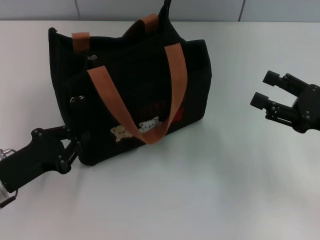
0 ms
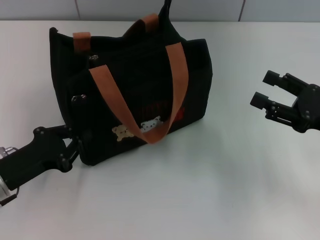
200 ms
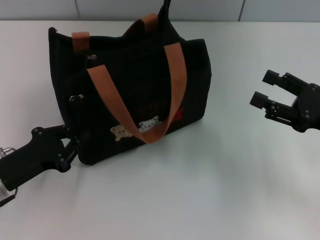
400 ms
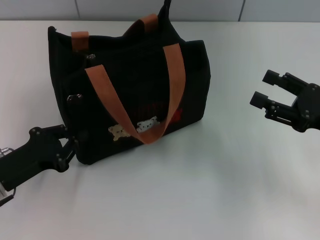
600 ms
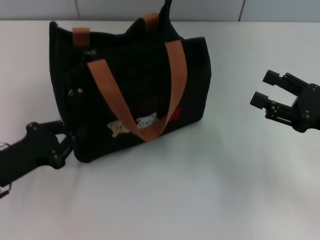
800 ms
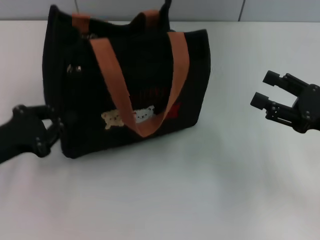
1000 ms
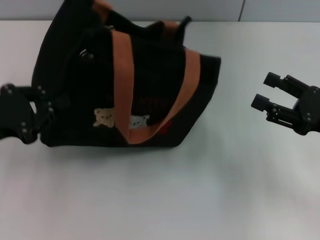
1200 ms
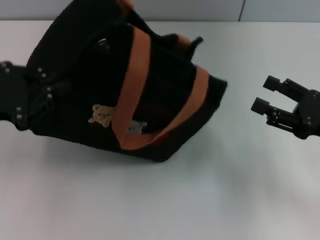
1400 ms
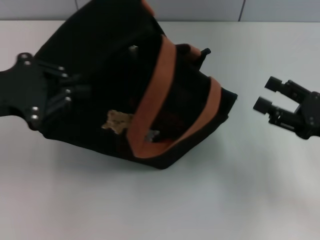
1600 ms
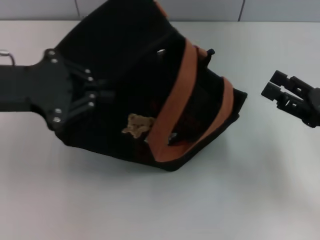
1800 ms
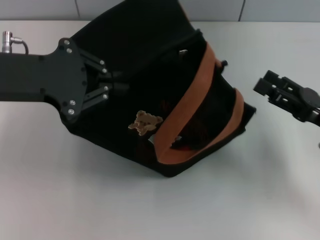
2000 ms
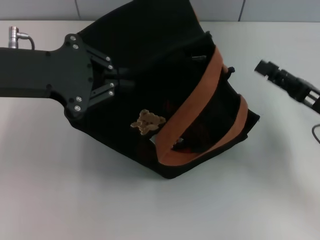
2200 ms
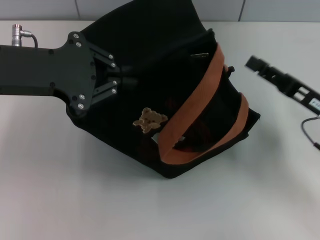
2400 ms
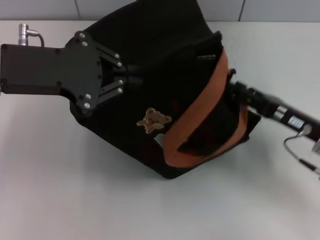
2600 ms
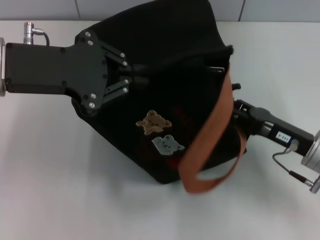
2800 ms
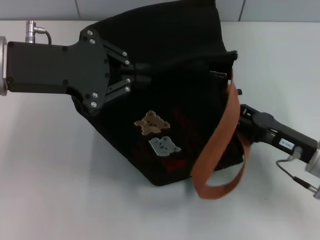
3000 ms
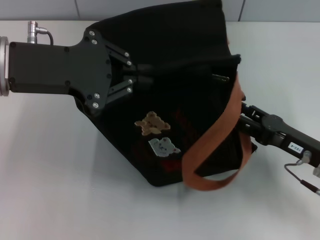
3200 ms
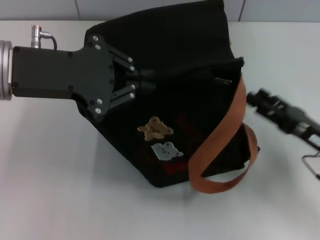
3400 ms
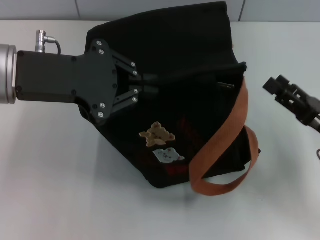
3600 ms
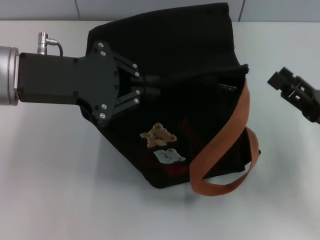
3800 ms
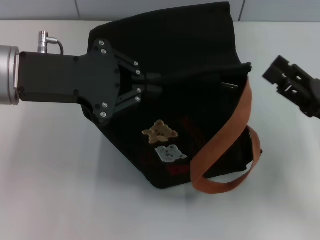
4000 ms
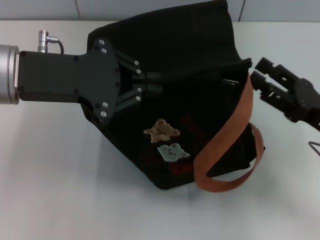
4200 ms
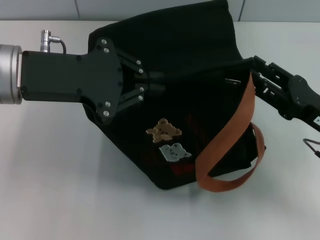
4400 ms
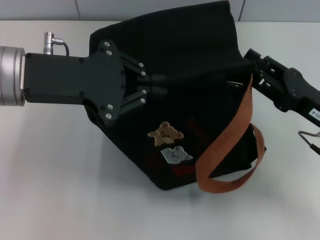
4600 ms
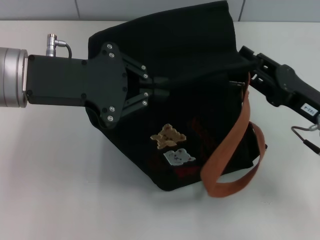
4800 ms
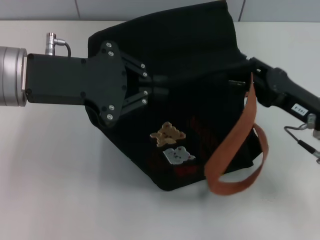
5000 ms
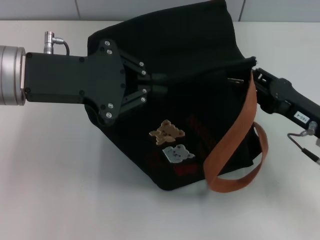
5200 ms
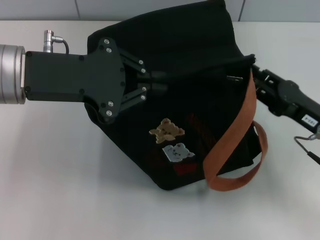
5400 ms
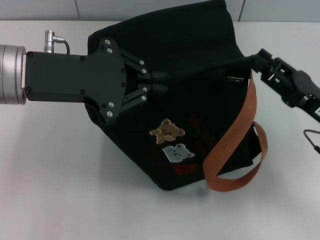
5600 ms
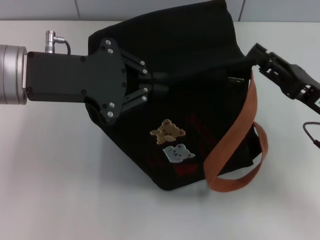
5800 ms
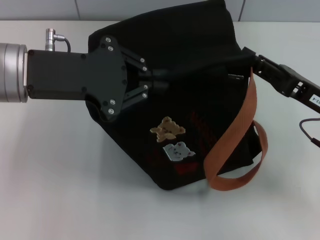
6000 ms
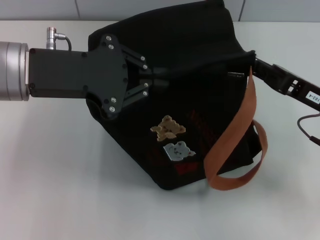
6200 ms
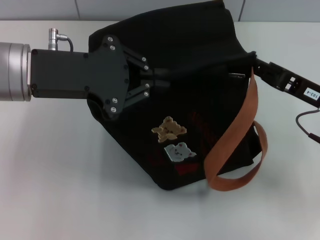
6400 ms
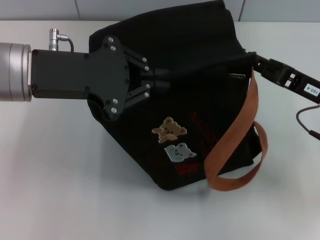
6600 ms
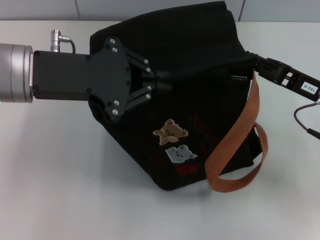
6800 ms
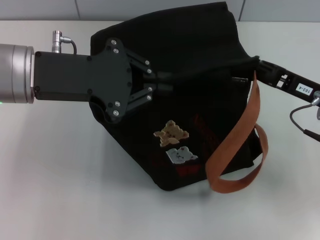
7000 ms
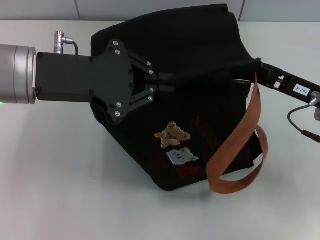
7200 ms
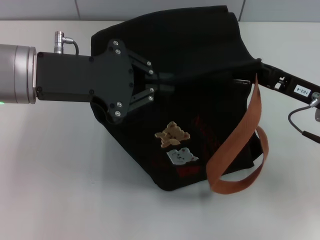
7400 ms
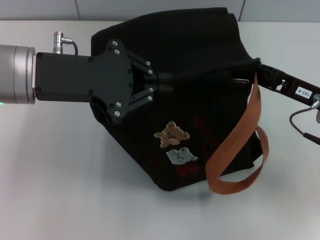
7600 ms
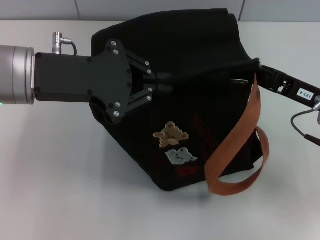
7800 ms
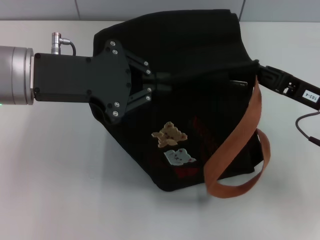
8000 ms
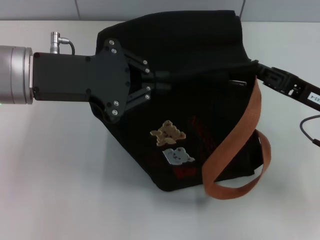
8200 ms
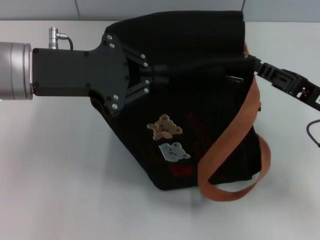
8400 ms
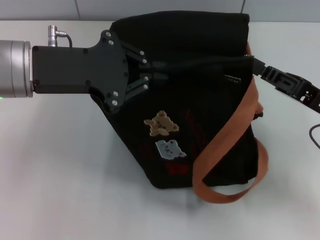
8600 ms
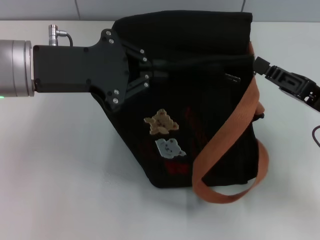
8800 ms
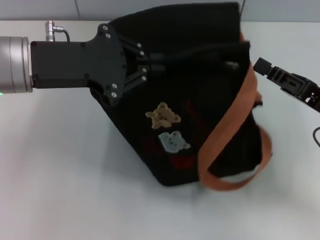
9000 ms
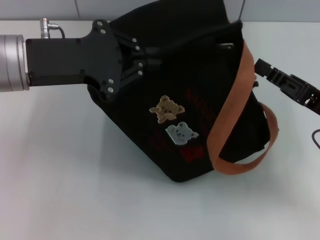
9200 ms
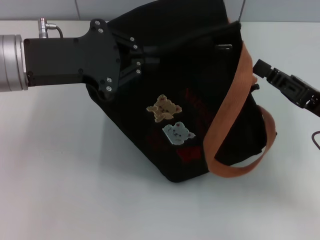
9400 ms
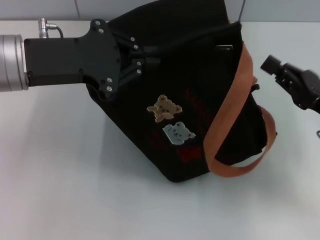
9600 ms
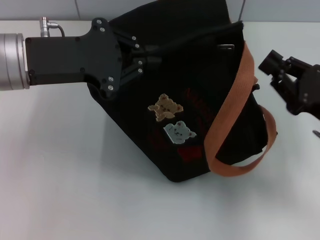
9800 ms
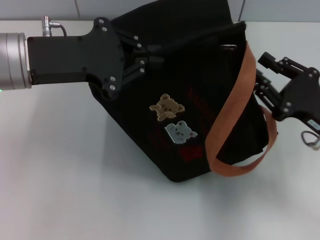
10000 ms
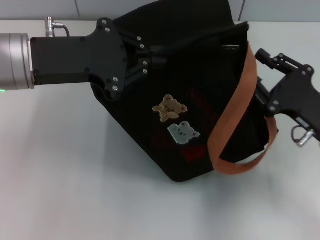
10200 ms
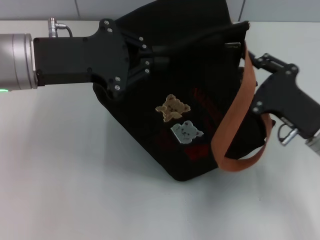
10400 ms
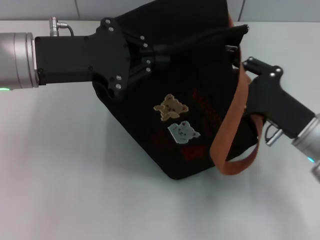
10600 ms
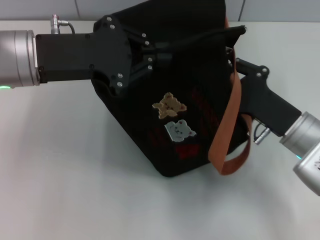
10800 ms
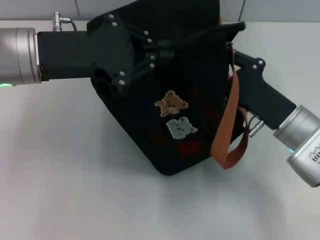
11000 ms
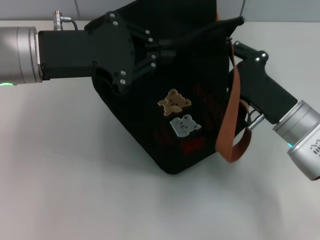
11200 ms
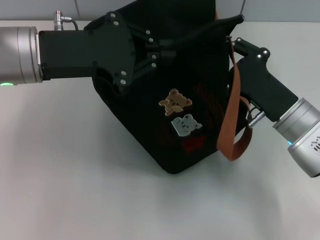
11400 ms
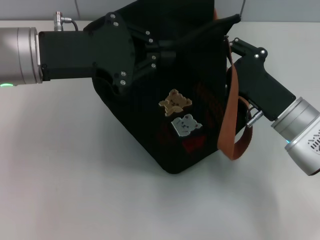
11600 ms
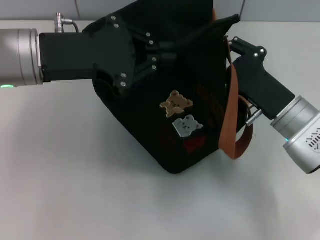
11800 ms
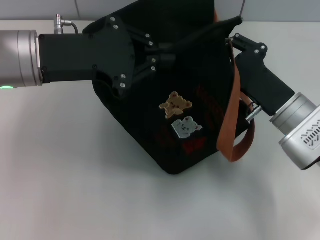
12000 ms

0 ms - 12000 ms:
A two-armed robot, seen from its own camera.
0 ms - 1600 ms: The left gripper moves upward, some 15 cm.
1600 ms - 3000 ms: The right gripper shifts some 5 cm to the left. Meanwhile the left gripper goes some 5 cm to the right.
4400 ms - 6000 ms: The grippers make only small movements.
6000 ms - 7600 ms: The right gripper closes up.
7600 ms - 9000 ms: The grippers stay close to where they were, moving slightly.
9000 ms - 10400 ms: The right gripper shifts by some 5 cm, and opens its fingers.
10400 ms - 12000 ms: The right gripper shifts by approximately 5 cm.

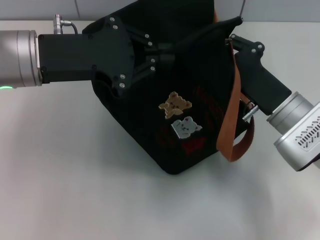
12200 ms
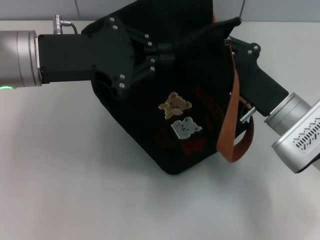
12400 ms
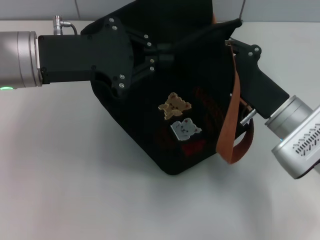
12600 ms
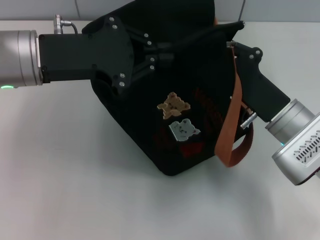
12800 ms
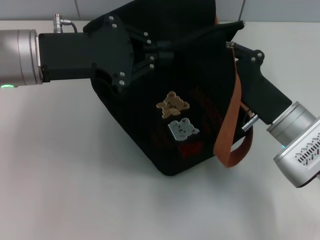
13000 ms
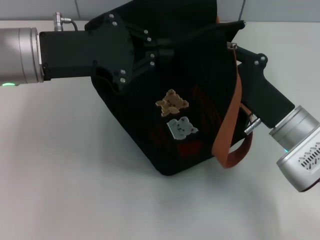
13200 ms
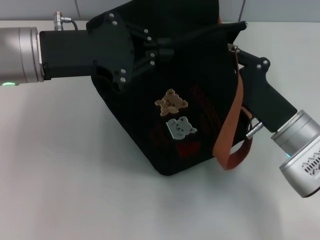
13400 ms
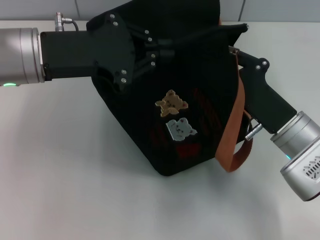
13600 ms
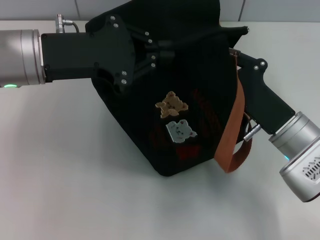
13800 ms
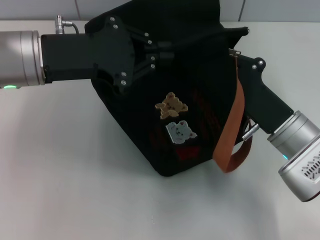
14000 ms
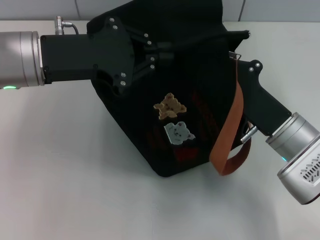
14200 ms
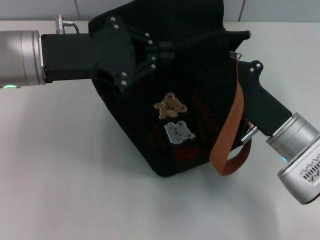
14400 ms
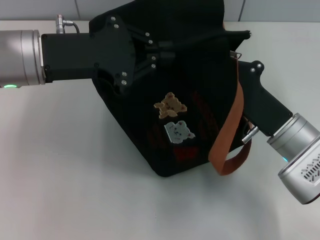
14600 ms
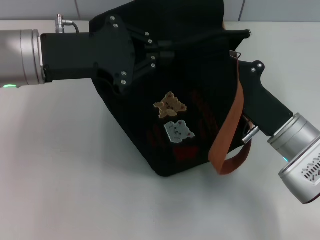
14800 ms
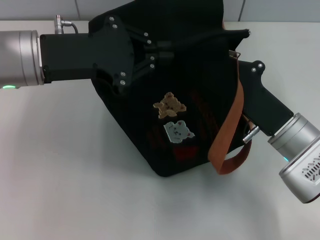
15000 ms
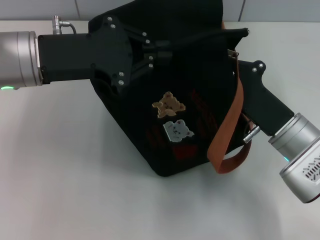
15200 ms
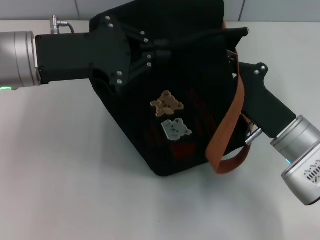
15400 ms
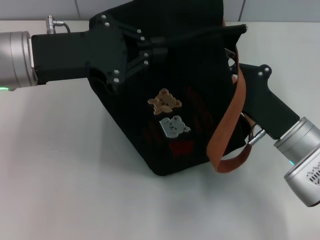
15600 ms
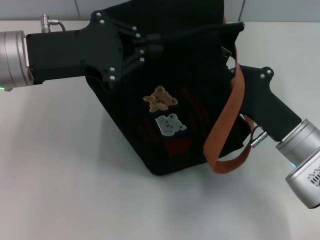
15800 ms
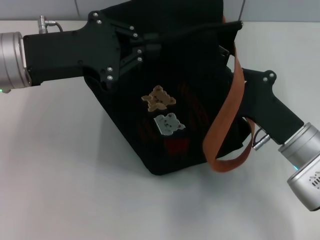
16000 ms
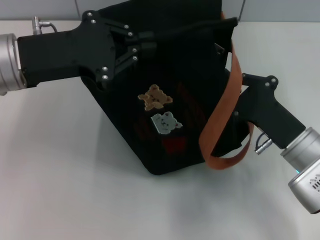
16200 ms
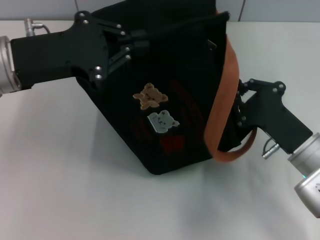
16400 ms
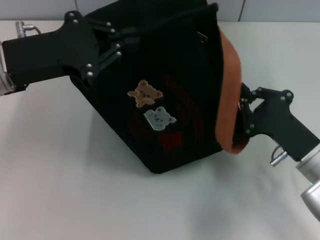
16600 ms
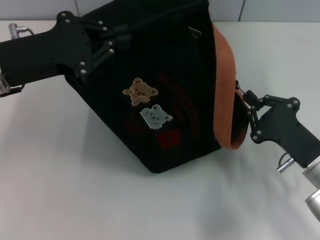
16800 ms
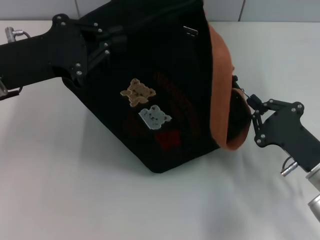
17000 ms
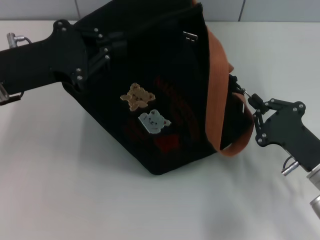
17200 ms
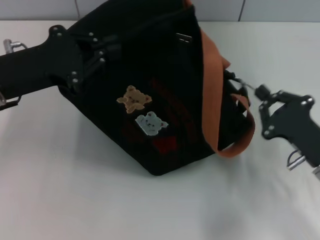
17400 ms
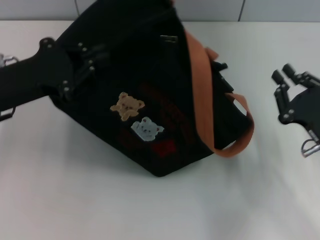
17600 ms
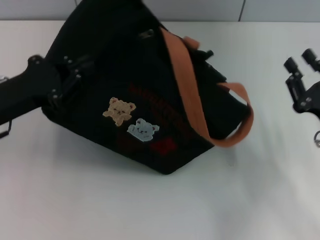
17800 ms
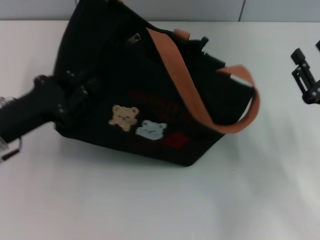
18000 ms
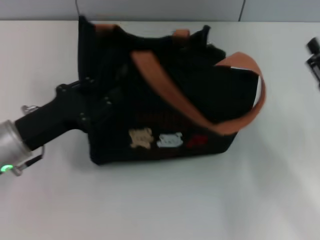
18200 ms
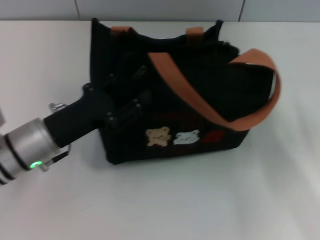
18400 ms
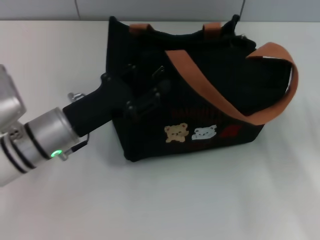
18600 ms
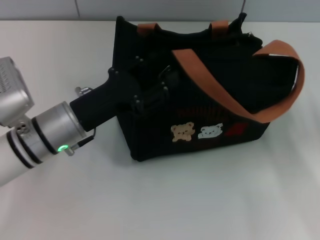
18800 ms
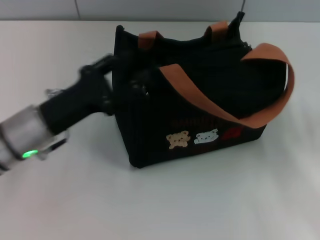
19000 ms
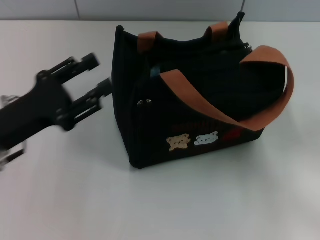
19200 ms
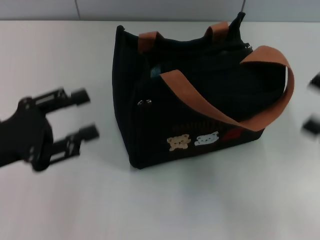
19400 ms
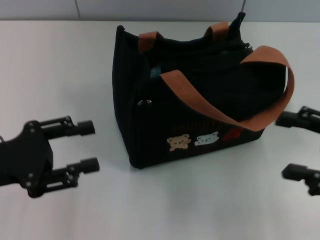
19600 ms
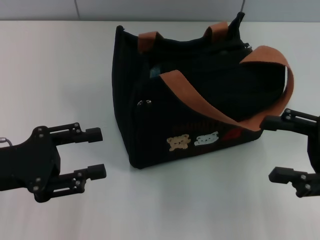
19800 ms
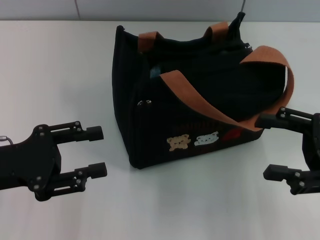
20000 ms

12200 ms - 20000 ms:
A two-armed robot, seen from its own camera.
Step, 12200 ms - 17400 ms: Pull open the zipper with your right hand.
Step, 17600 ms - 19000 ms: Grab the bag with your left hand.
12200 ms - 13800 ms: The grippers stay close to where they were, moving slightly.
13800 ms - 15400 ms: Neither gripper changes place.
15400 ms - 16800 ms: The right gripper shifts approximately 5 cm to the right.
16800 ms - 18400 ms: The right gripper goes about 5 cm to the right, and opens. Meanwhile the left gripper moves downward, roughly 15 cm, and opens its fingers.
18400 ms - 20000 ms: The right gripper is displaced upward by some 5 cm. Meanwhile the left gripper is displaced to the left by approximately 5 cm.
